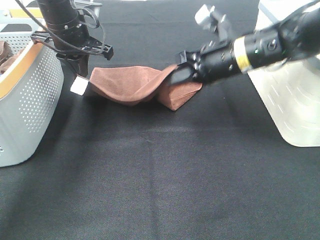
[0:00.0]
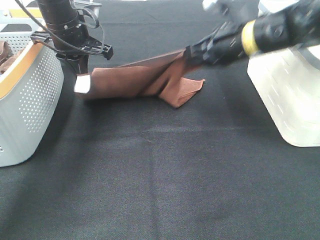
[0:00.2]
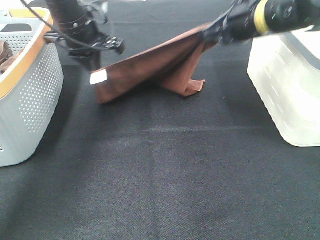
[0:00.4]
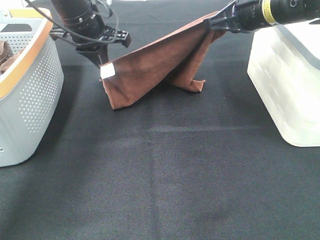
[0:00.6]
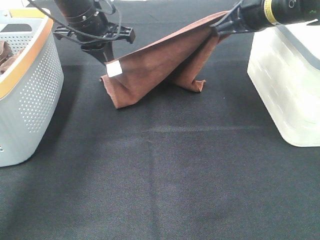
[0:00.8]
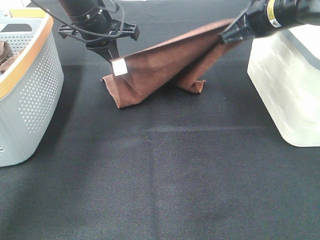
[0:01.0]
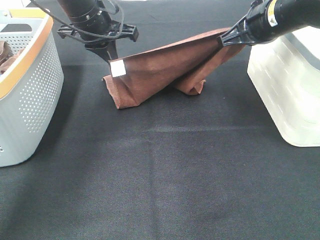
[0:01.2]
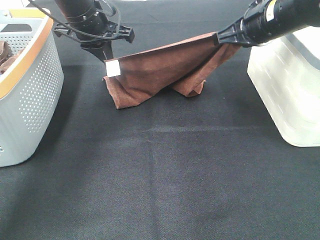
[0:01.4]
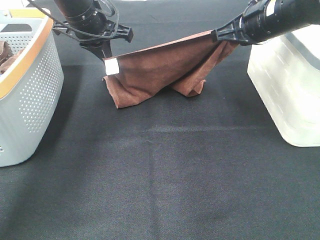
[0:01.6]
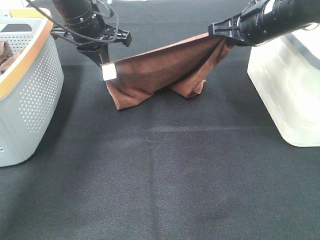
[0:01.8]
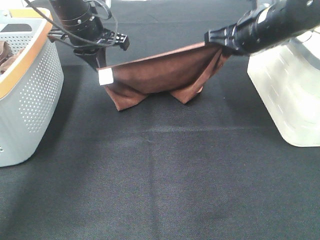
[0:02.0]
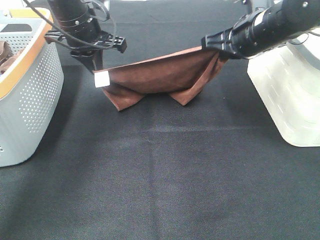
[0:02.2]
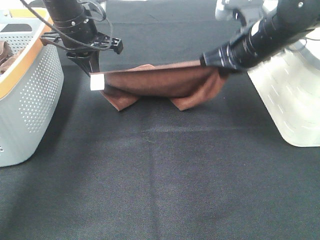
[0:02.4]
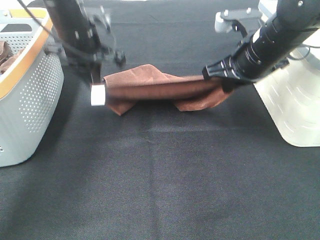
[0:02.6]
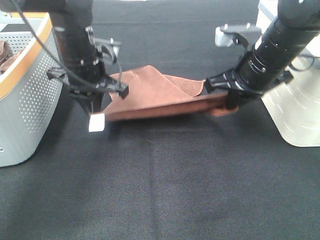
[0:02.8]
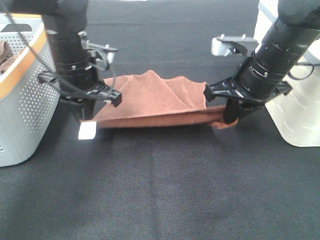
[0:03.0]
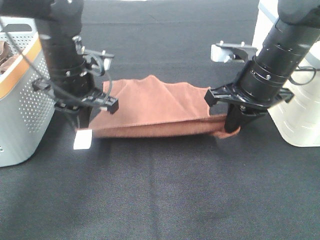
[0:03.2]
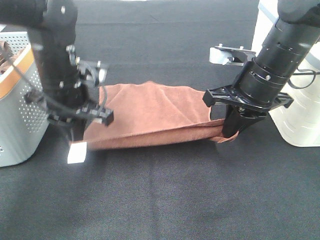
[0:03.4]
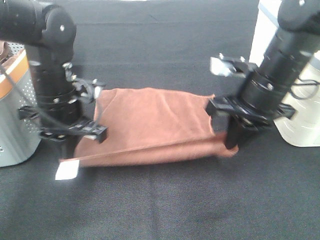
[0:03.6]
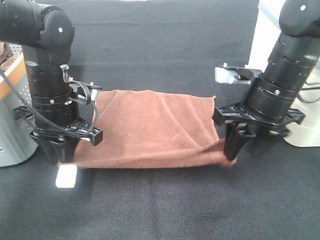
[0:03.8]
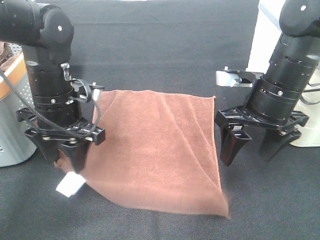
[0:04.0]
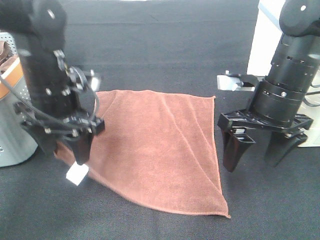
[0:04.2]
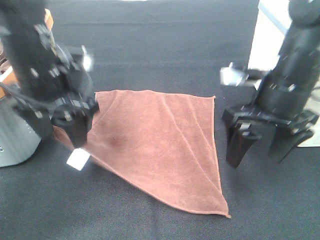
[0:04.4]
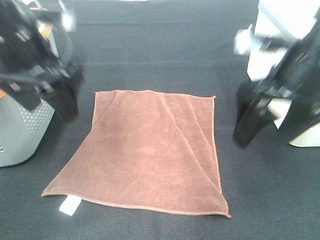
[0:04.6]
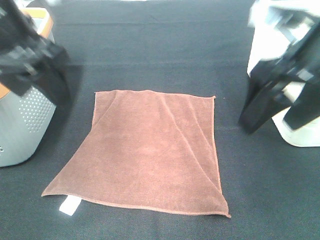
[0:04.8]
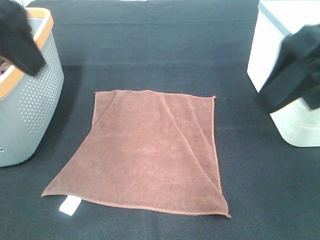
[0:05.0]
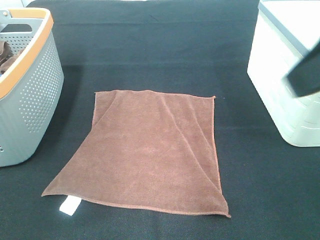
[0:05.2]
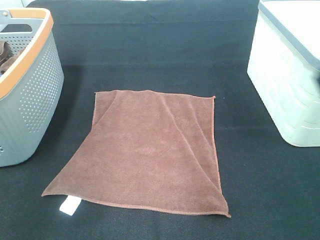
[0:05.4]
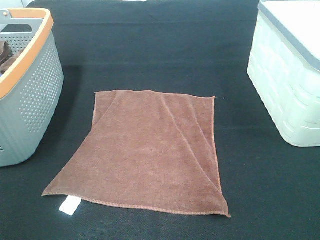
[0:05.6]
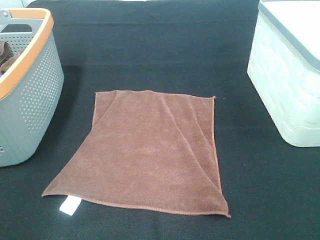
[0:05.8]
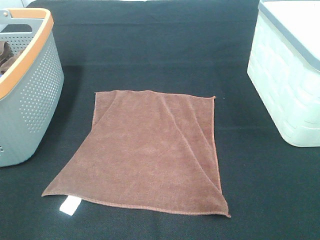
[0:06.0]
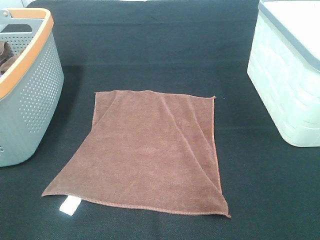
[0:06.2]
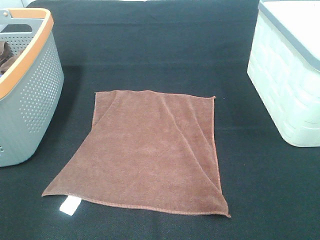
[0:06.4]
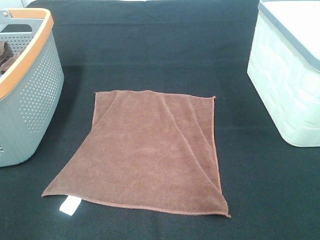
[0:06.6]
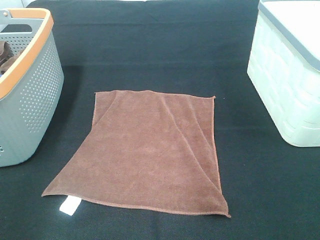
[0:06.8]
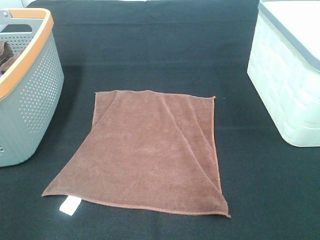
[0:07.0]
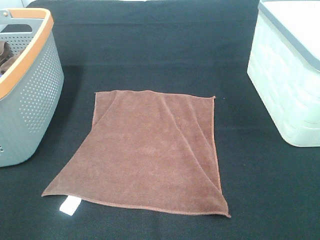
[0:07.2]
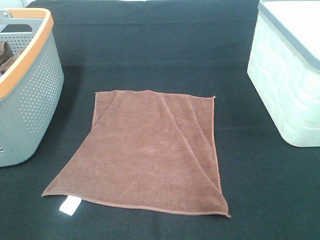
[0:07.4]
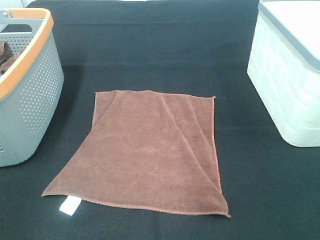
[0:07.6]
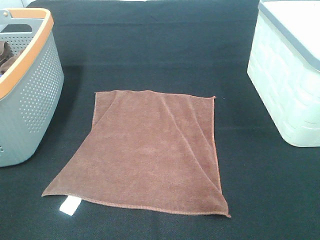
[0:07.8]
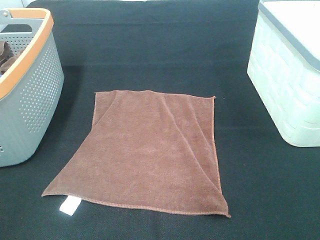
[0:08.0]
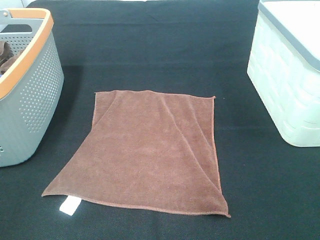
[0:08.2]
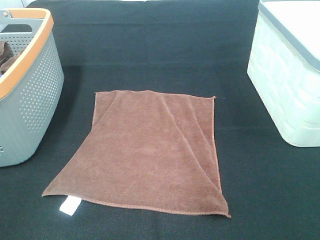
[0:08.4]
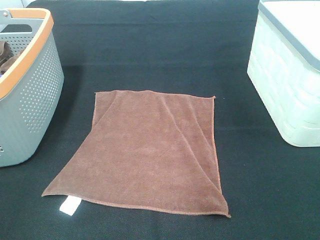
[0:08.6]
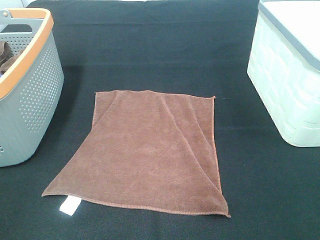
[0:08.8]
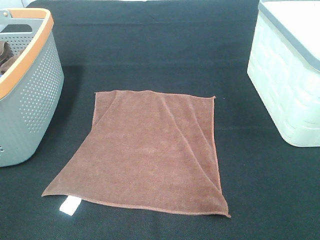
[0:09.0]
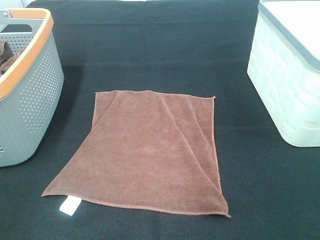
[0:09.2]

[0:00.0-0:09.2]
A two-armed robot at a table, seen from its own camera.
Task of the whole recording: Remove the towel and place it.
0:00.0 to 0:01.6: The right gripper moves upward, some 5 cm.
0:01.6 to 0:03.0: The two grippers go some 10 cm backward and downward.
0:03.0 to 0:04.6: The left gripper shifts roughly 15 cm upward and backward, and opens up. Meanwhile the right gripper heads backward and upward, covering approximately 10 cm, and opens its fingers.
0:04.6 to 0:06.2: The right gripper goes roughly 25 cm backward and to the right; the left gripper moves backward and to the left, some 30 cm.

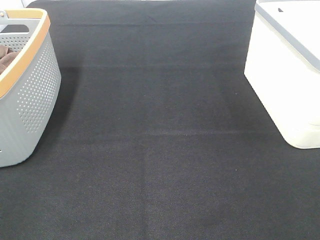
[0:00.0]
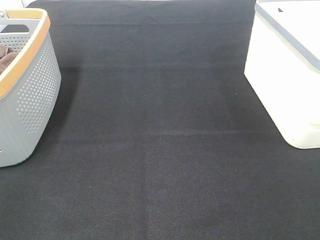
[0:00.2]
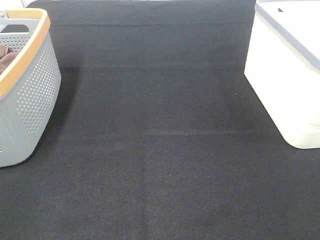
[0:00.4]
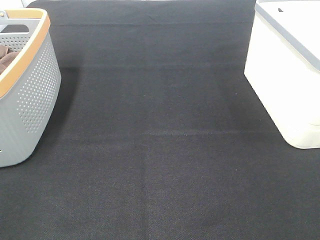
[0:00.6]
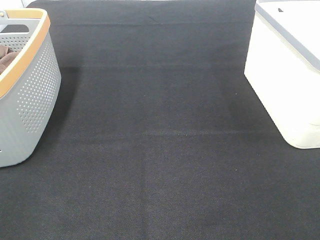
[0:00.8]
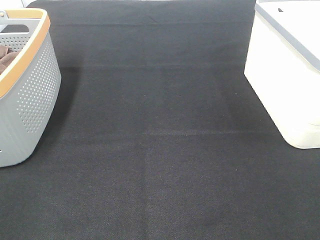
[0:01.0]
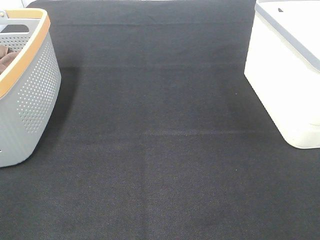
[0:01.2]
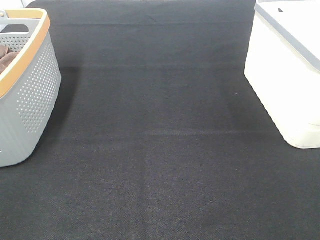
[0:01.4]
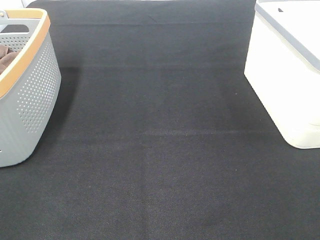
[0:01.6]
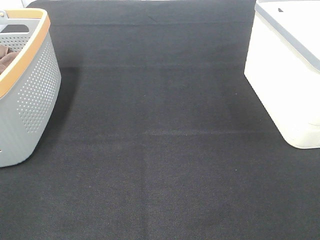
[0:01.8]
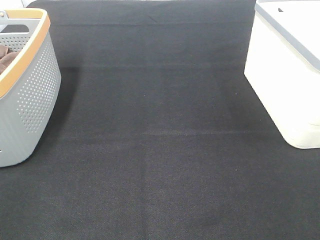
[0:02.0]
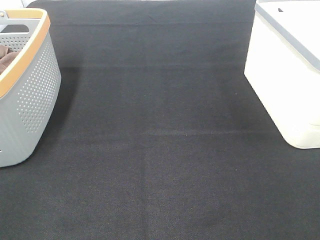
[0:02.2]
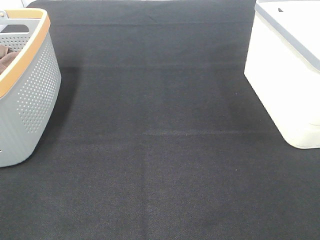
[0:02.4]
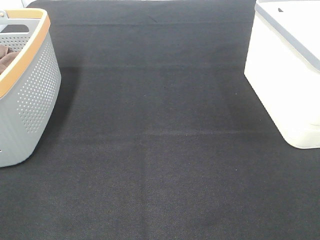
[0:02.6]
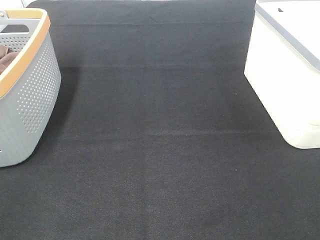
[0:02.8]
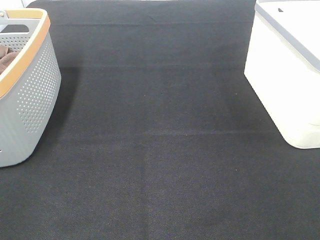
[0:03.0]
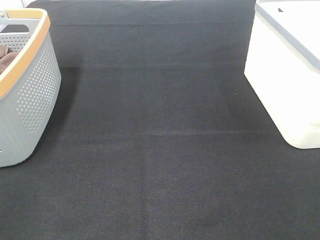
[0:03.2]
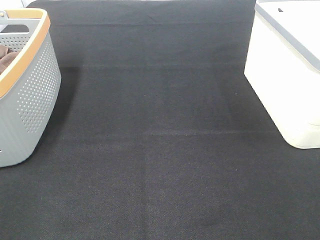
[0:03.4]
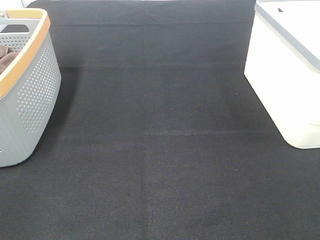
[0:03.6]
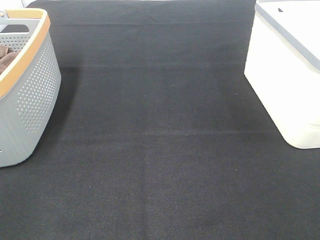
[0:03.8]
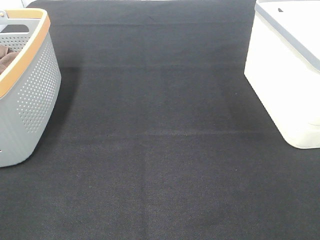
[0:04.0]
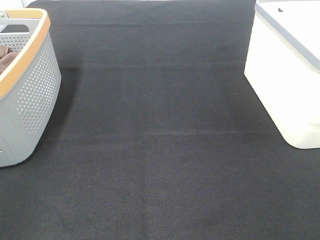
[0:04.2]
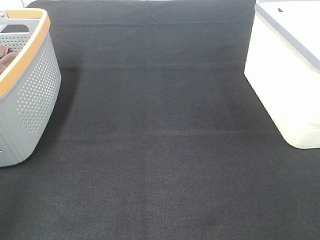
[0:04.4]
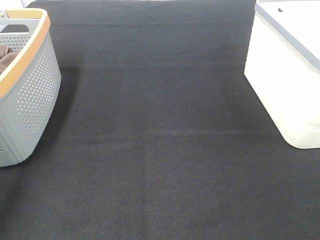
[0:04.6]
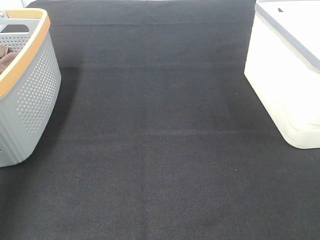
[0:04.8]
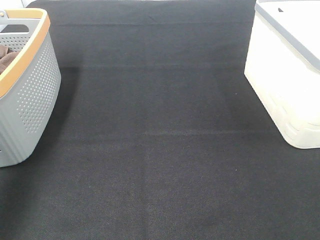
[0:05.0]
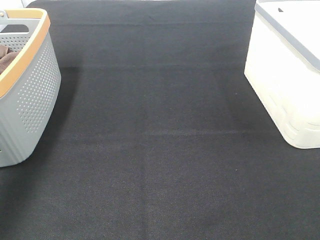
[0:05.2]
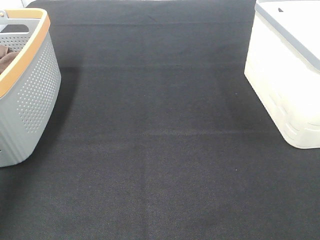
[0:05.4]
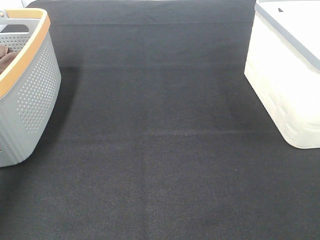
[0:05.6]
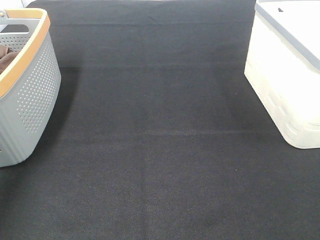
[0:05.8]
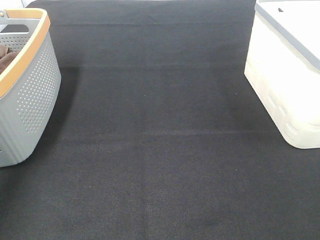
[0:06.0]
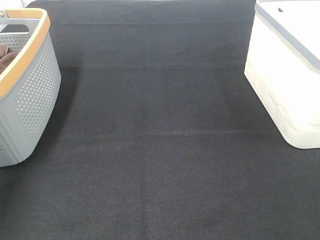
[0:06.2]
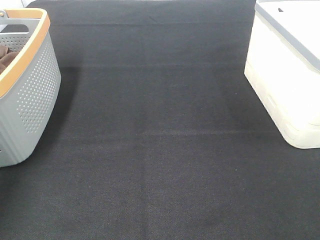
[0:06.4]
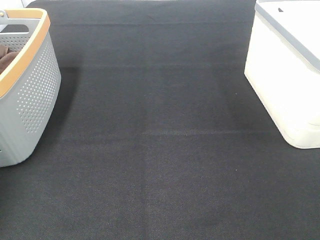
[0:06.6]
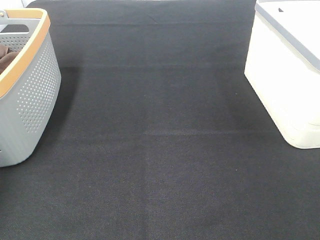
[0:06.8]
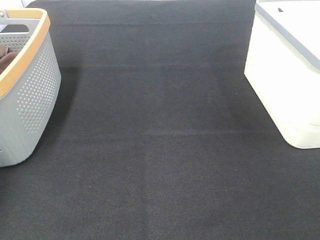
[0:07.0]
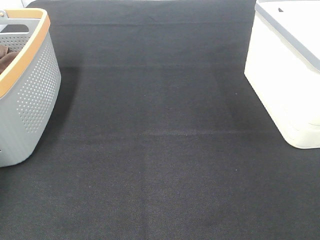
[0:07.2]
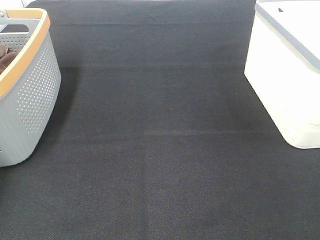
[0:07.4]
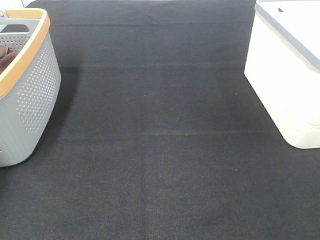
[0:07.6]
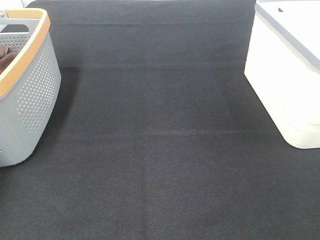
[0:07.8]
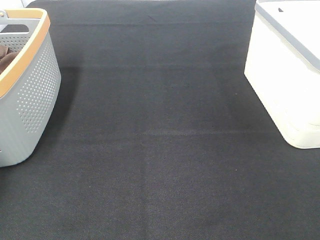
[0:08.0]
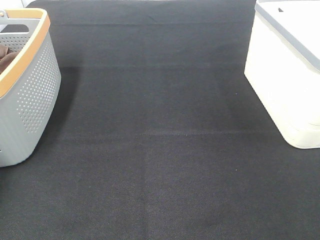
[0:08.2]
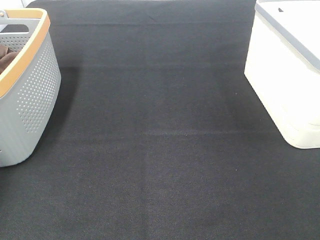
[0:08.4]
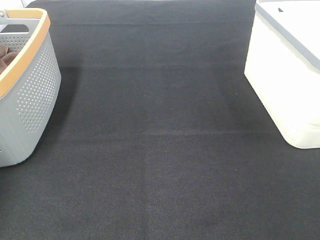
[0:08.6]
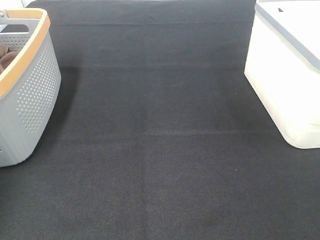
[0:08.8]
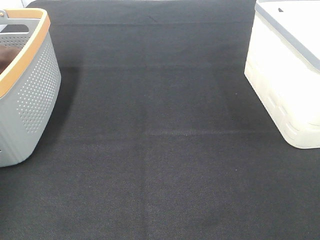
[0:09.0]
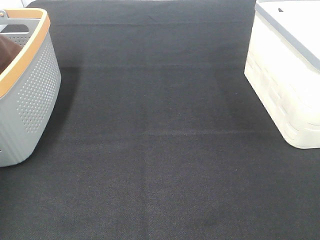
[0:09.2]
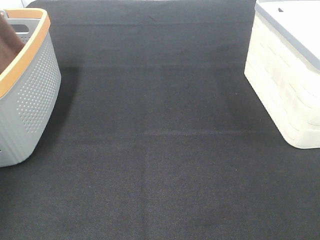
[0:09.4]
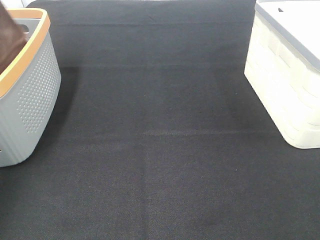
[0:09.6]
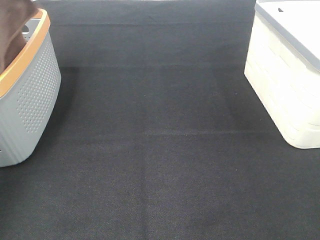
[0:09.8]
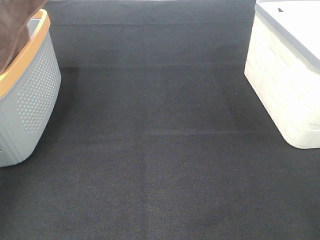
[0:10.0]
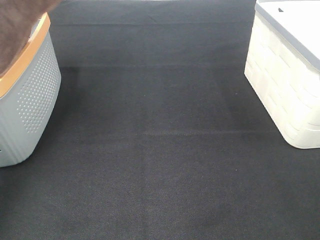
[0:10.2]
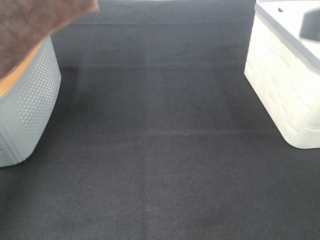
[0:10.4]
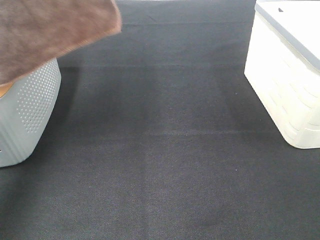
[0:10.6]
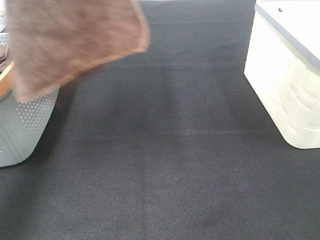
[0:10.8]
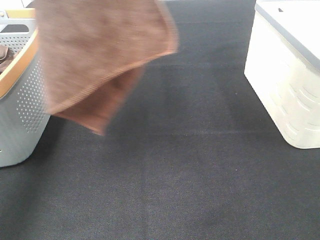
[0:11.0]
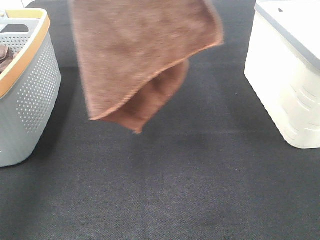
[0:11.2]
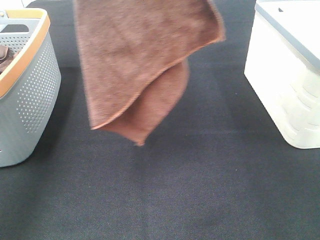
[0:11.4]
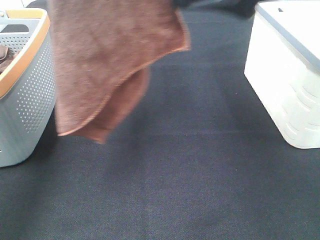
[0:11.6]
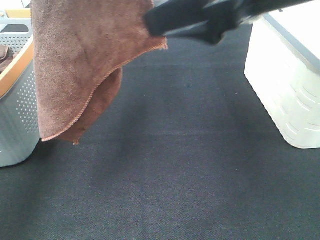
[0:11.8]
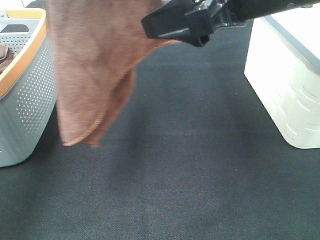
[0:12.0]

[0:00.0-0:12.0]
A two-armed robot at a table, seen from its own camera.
Task of the whole recording: Remove the towel and place it.
0:00.0 to 0:03.0: Both grippers stay put.
0:04.4 to 0:06.0: The left gripper goes some 35 cm forward.
0:06.0 to 0:07.6: The left gripper heads downward, to the left and forward, covering about 10 cm.
0:09.0 to 0:10.4: The right gripper moves forward, upward and to the left, approximately 15 cm; the left gripper moves upward, to the right and backward, roughly 25 cm.
0:10.4 to 0:12.0: The left gripper moves to the right, roughly 10 cm. The right gripper is displaced forward and to the left by roughly 15 cm.

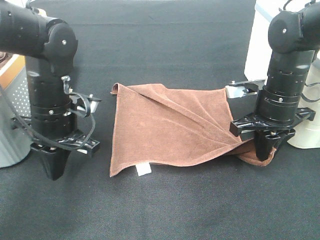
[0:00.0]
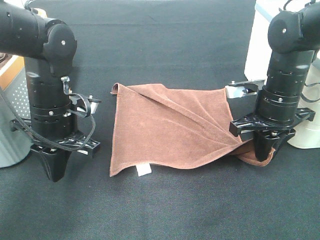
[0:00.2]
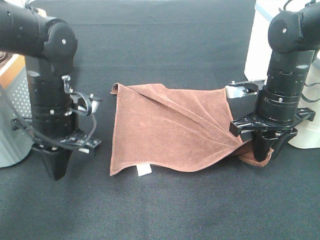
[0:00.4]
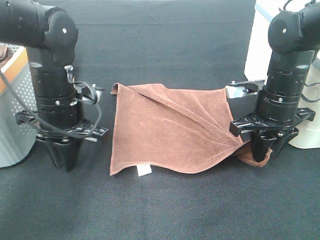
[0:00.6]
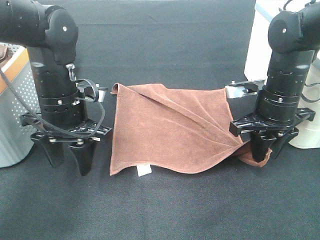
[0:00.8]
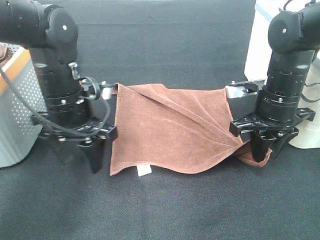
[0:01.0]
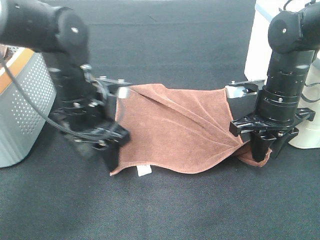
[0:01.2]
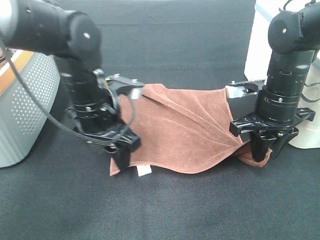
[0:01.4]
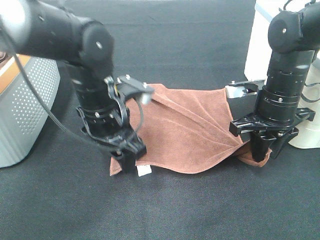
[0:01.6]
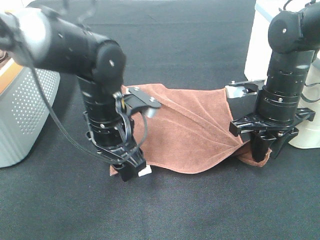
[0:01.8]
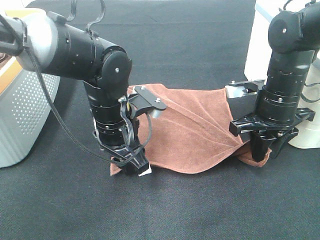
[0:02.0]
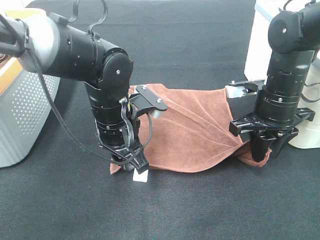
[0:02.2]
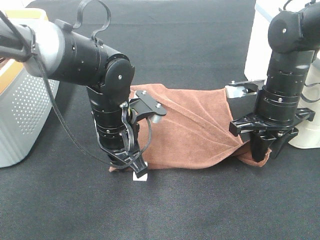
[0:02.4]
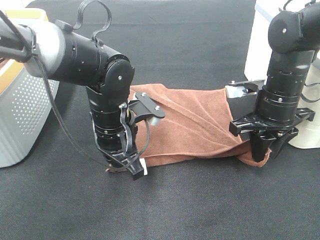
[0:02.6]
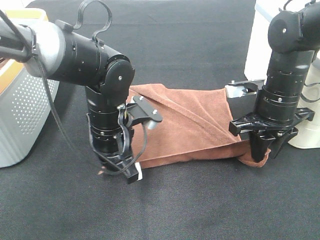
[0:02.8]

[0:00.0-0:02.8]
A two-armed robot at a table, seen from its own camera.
Task of the whole recording: Remove the towel and place it.
0:00.0 to 0:01.4: The left gripper heads to the right, covering some 5 cm, and opens its fingers.
0:01.4 to 0:02.8: The left gripper closes its fingers.
